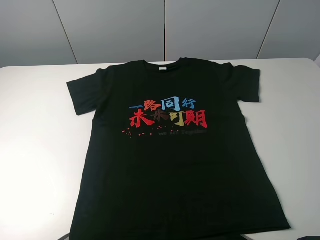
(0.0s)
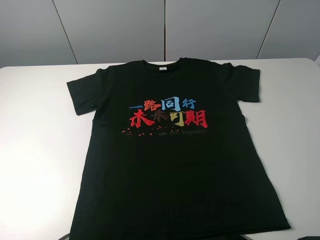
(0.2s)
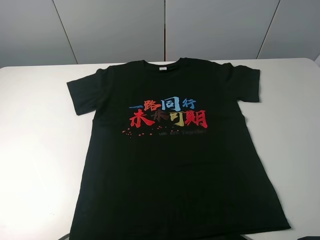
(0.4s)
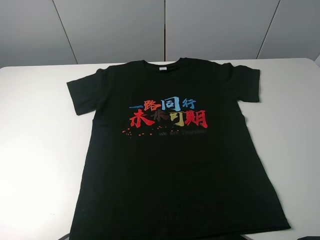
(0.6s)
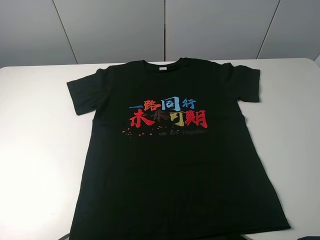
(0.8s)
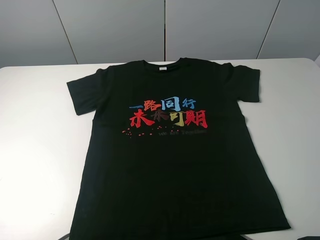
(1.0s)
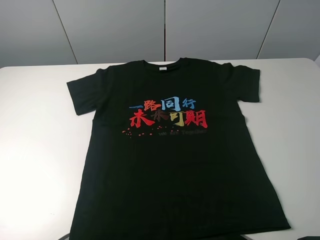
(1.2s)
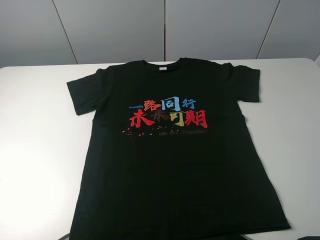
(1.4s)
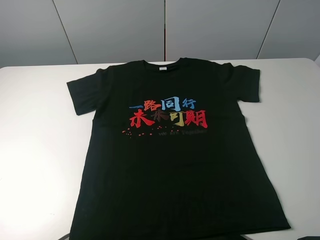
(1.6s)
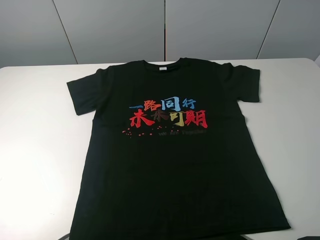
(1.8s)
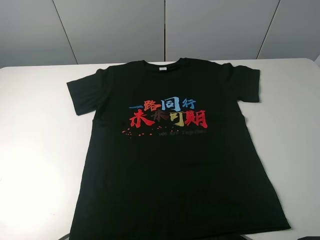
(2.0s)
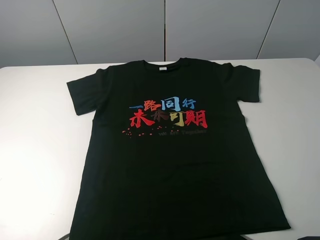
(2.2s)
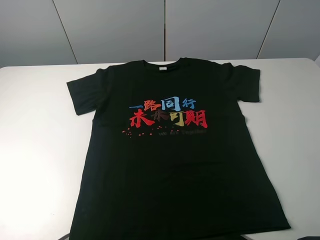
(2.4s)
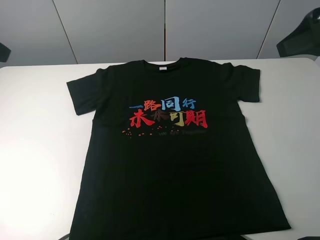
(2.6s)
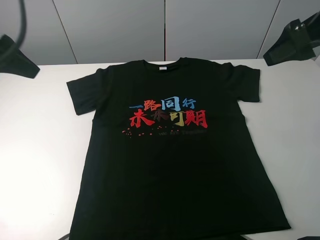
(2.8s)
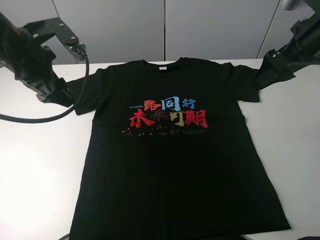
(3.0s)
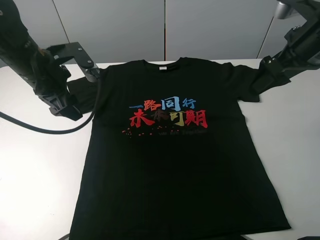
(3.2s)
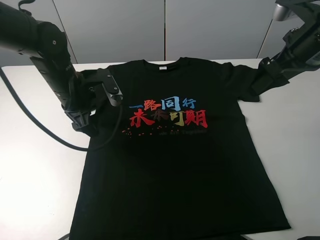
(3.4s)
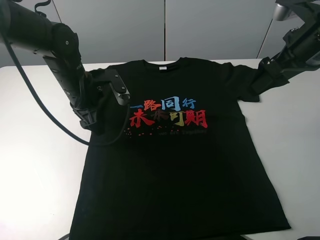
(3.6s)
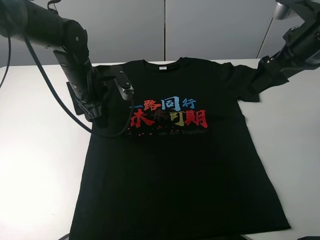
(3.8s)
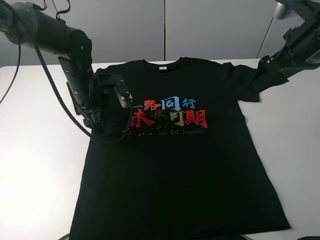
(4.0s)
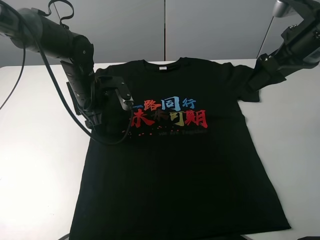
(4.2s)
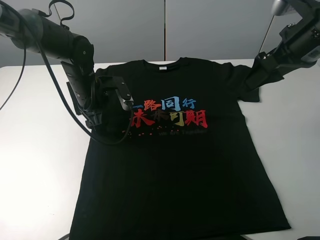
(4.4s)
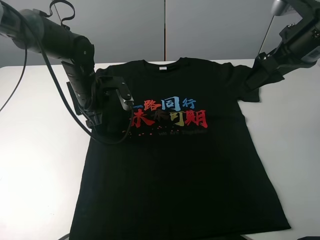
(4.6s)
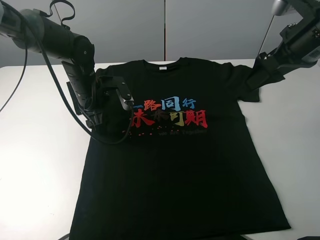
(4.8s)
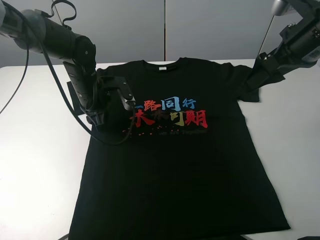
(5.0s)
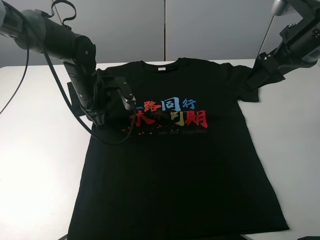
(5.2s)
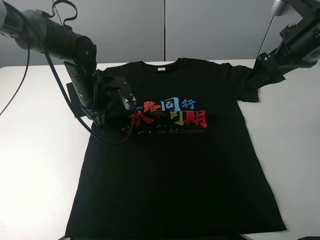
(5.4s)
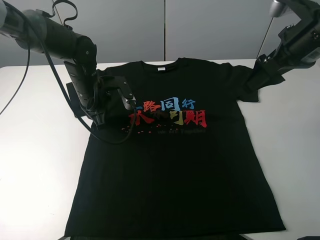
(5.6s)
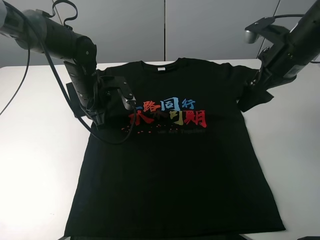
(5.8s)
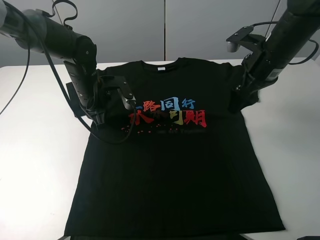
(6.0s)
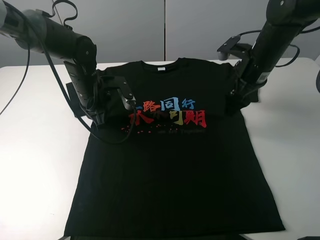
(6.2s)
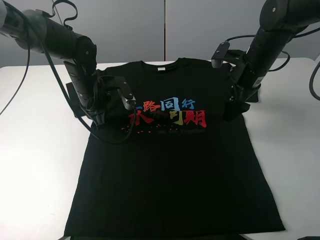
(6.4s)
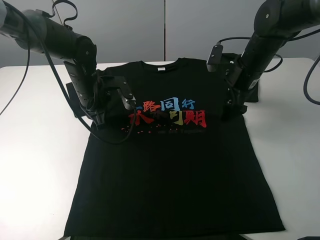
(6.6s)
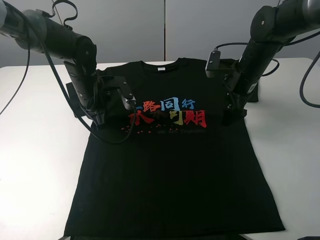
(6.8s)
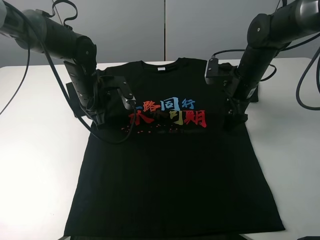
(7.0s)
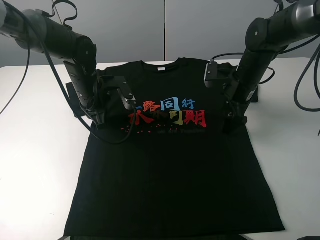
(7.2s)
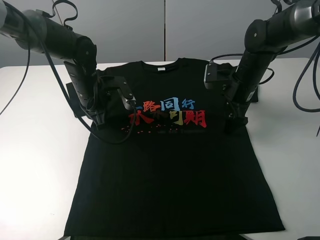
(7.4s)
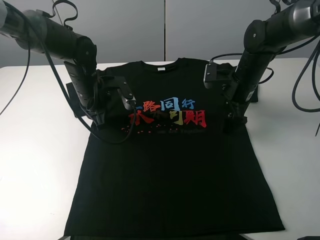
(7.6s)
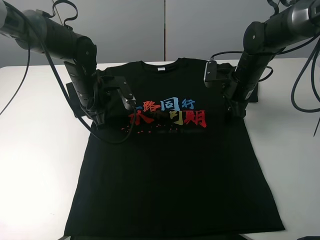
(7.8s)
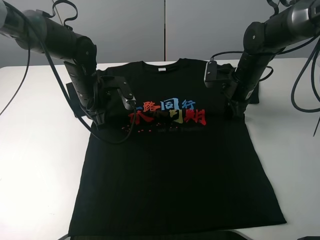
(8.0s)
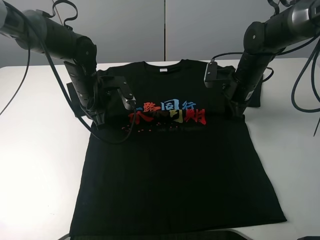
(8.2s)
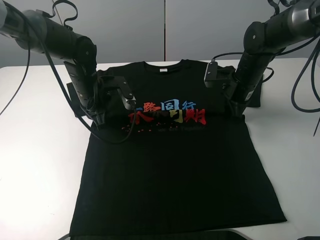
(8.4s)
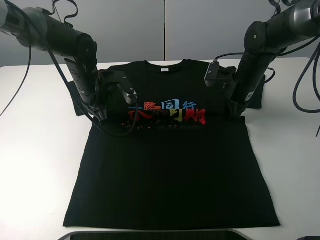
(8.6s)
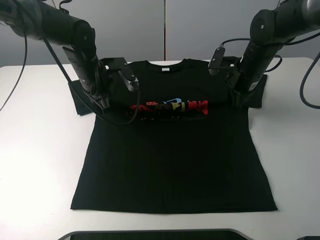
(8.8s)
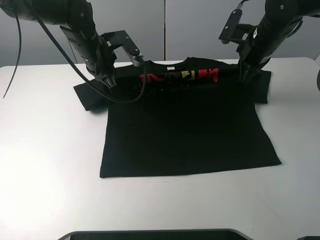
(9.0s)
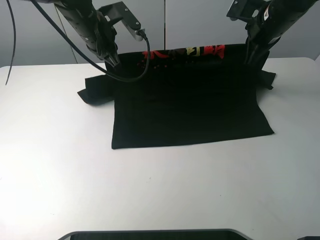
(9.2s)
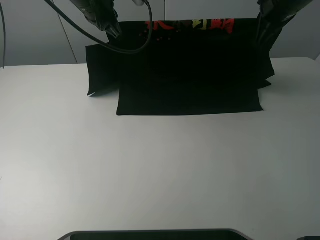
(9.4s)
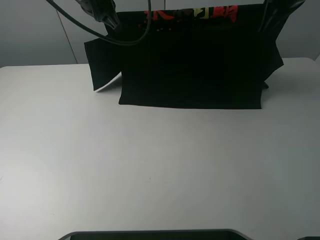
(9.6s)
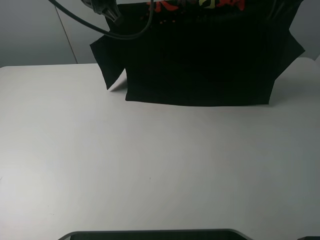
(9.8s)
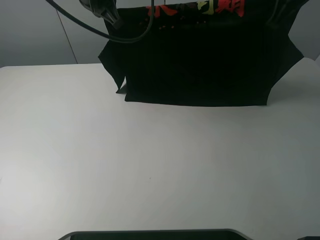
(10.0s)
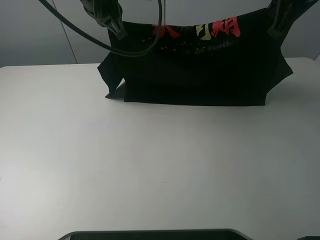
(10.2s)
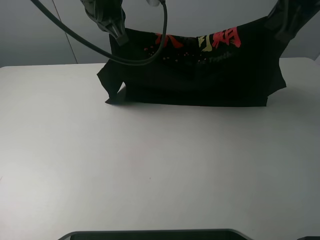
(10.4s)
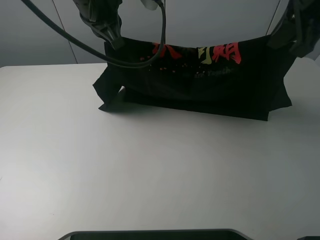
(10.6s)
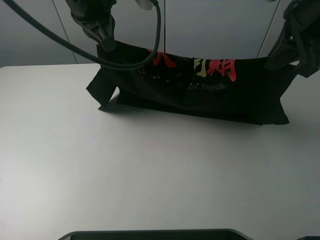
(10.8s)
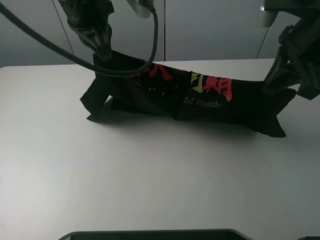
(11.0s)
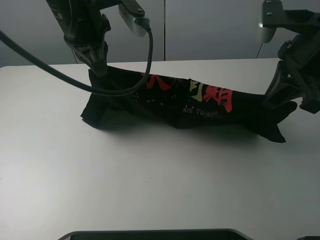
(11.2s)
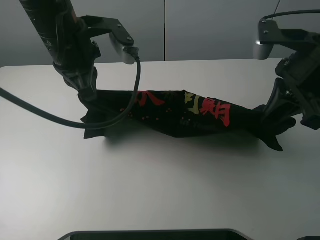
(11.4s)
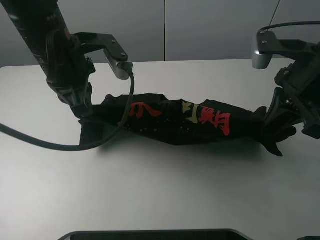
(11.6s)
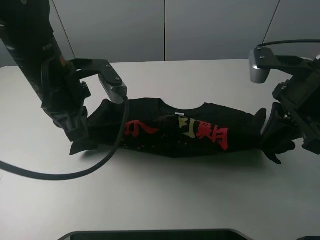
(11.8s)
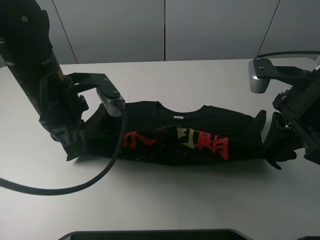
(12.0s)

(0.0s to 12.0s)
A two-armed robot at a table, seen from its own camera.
Task of the whole recording: fold the clothes on the table.
Step, 0.0s - 8.0s: Lift the black T-shirt with the left gripper.
0.0s - 1.6s: The two grippers keep their place.
1.6s - 3.0s: The left gripper is displaced forward and to the right by approximately 30 cm. The right gripper is displaced forward by roughly 30 cm.
3.0s - 4.4s: The left gripper travels downward, to the right and forward by approximately 15 cm.
4.4s - 6.0s: The left gripper closes up; the right gripper travels downward by about 5 cm.
6.0s - 7.6s: The right gripper shifts roughly 10 cm downward.
7.6s - 9.0s: Both grippers travel together upward, some 10 cm. The right gripper closes up.
9.0s - 10.4s: Both grippers move upward and backward, about 15 cm.
10.4s - 12.0s: The left gripper travels backward, downward and to the left by some 15 cm. The right gripper moves downward and backward, some 15 cm.

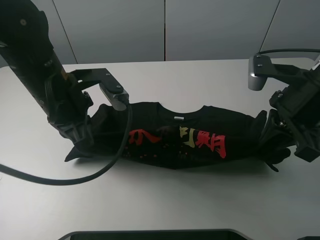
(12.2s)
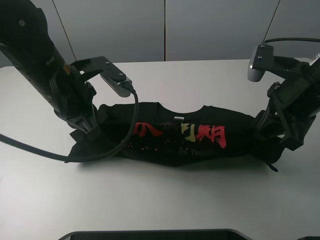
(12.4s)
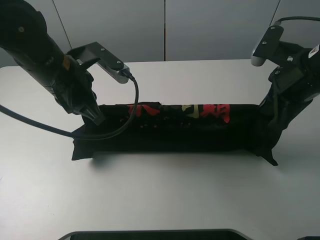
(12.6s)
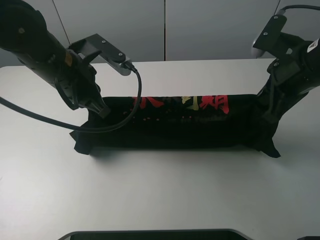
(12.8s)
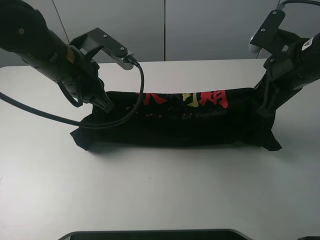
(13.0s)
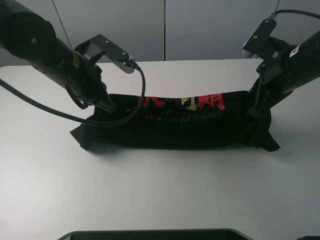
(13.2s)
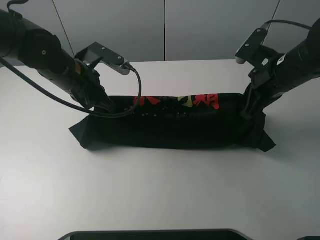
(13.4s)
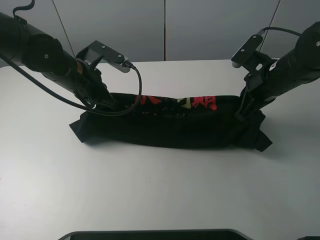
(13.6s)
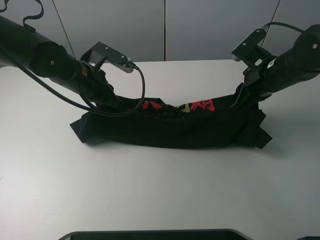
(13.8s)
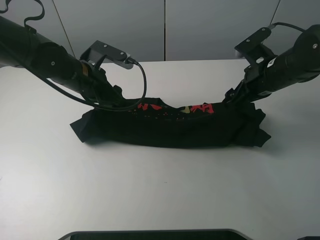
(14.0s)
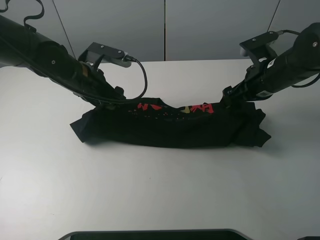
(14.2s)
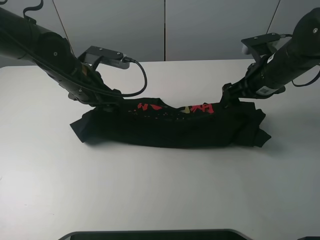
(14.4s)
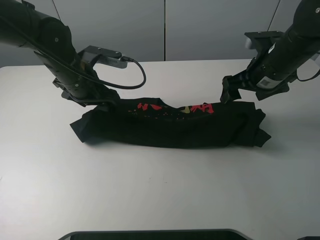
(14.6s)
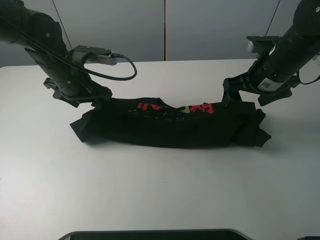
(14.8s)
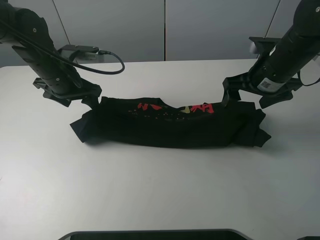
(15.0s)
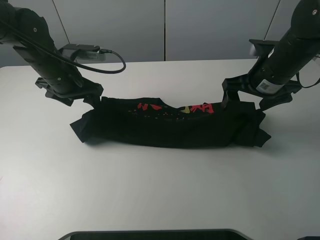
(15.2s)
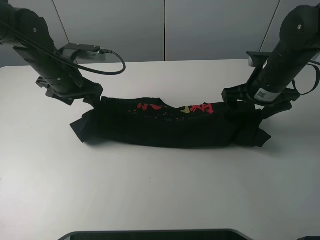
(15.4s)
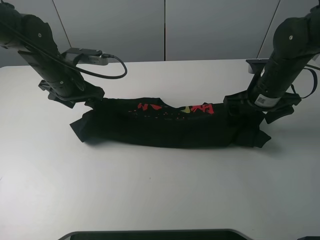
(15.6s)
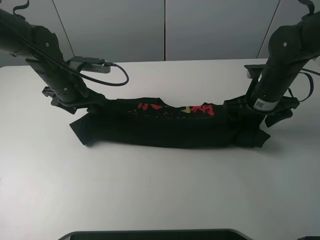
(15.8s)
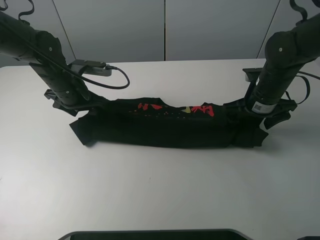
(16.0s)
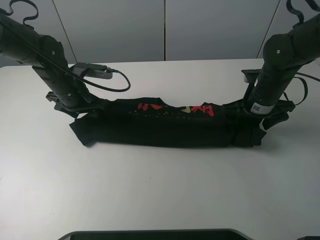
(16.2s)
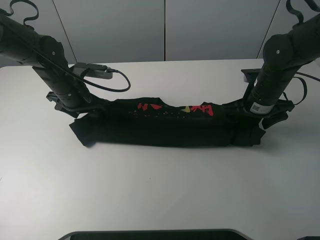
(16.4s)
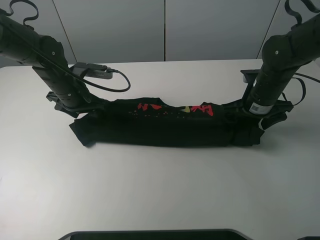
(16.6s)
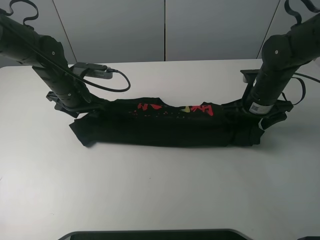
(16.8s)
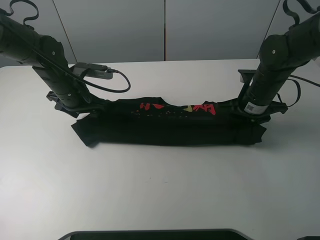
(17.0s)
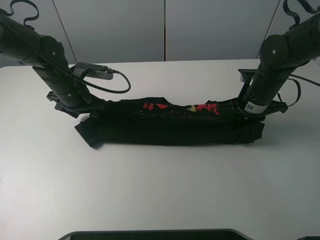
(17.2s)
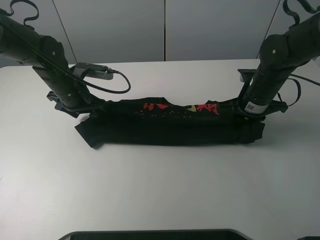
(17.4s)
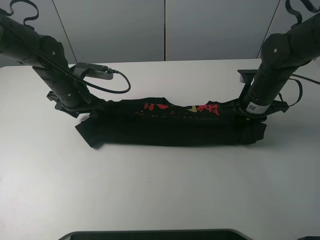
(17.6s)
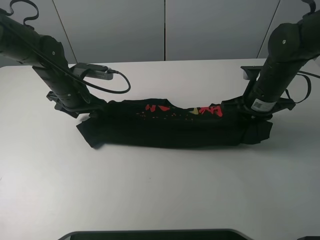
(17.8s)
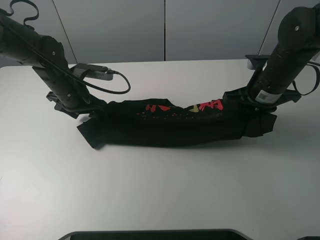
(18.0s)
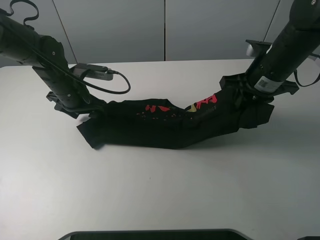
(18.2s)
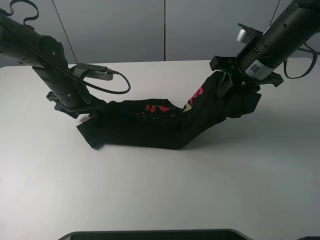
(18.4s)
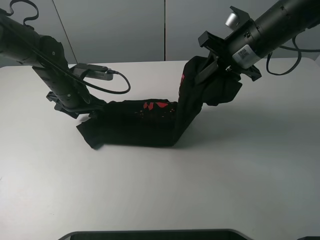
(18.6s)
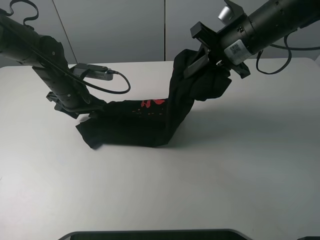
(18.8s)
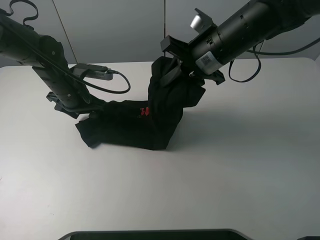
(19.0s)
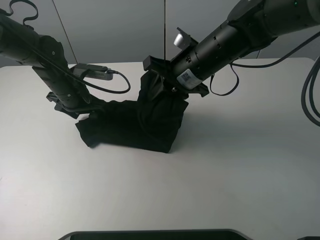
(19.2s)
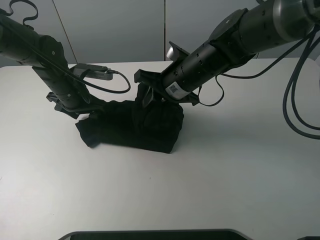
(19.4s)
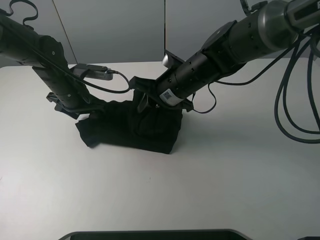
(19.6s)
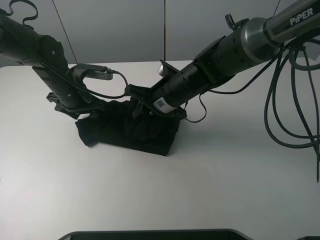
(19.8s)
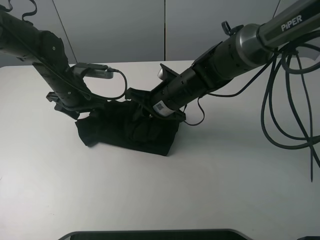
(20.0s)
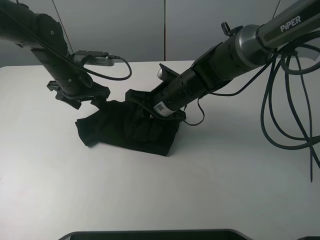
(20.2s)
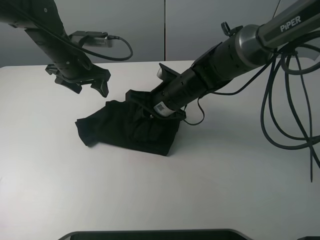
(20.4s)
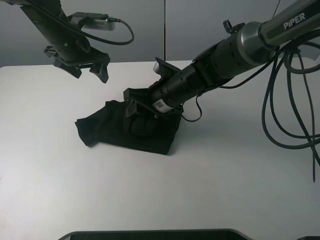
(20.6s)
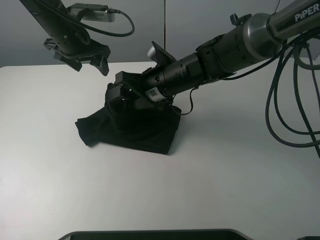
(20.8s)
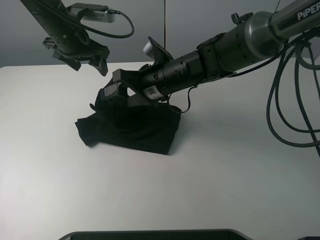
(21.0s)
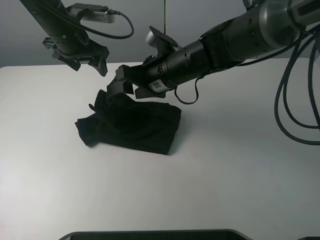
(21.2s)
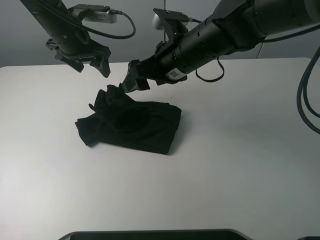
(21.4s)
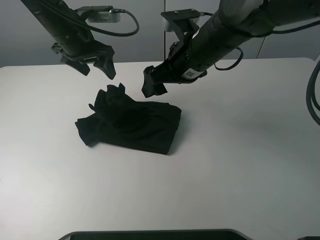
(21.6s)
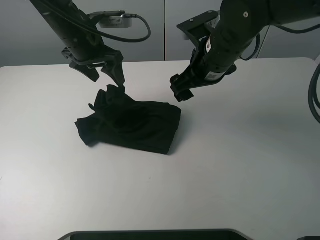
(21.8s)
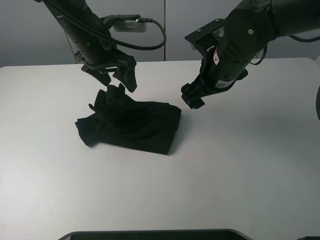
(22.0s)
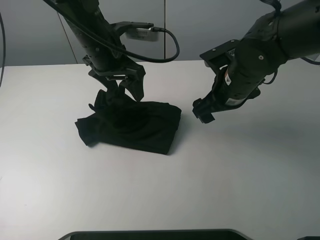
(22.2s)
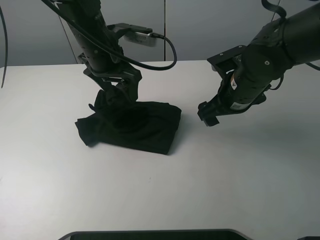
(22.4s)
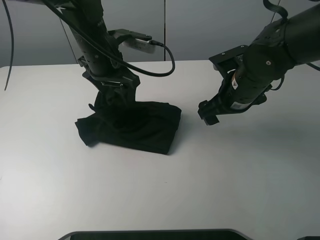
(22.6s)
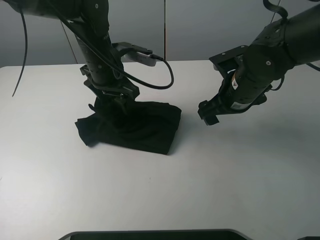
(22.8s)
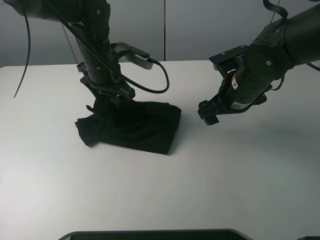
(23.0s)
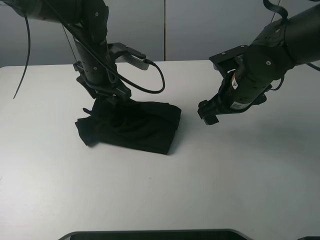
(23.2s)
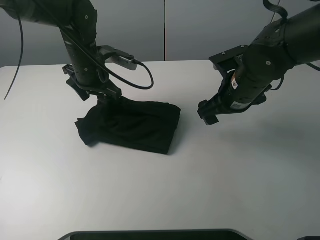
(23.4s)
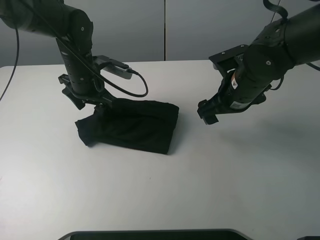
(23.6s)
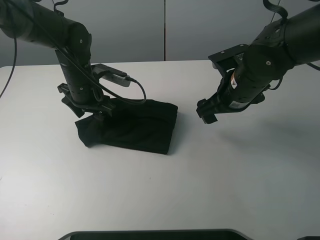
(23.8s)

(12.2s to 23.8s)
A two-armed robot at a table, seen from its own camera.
Task of the whole recording: fold the clothes on the table.
Step, 12.2s - 14.2s: Fold the black T-shirt downward with the left gripper.
Step, 14.6s - 17.2s: Grasp the black T-shirt with the right gripper.
Step, 17.4s - 21.2s: Fold the black T-shirt from right to left with right gripper.
12.2s - 13.6s: The left gripper moves forward, roughly 10 cm, while the right gripper goes approximately 10 cm forward and downward.
13.6s - 15.0s: The right gripper opens its fingers. Meanwhile the left gripper moves some 5 cm, and opens.
15.0s - 16.6s: The right gripper goes roughly 10 cm downward.
16.6s - 18.0s: The right gripper heads upward, covering about 5 cm, and closes.
18.0s - 19.4s: The right gripper heads to the left, covering about 15 cm.
19.4s - 21.0s: The right gripper opens its fingers; the left gripper moves upward, some 10 cm.
21.0s - 22.4s: The left gripper is displaced to the right and backward by roughly 10 cm; the right gripper goes approximately 15 cm to the right.
22.4s - 23.8s: The left gripper shifts some 10 cm downward and to the left.
